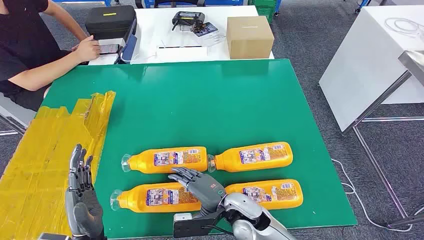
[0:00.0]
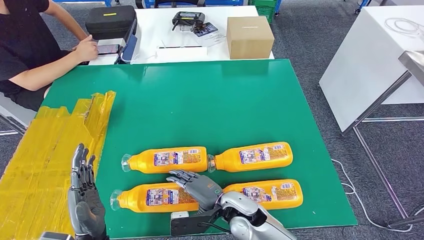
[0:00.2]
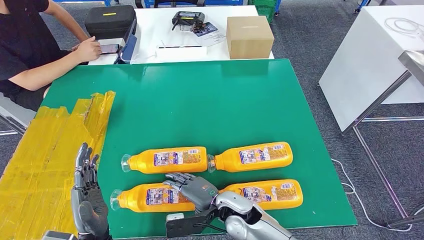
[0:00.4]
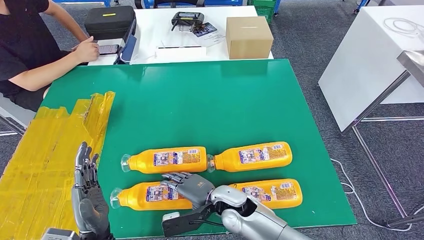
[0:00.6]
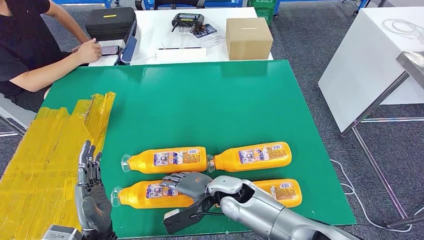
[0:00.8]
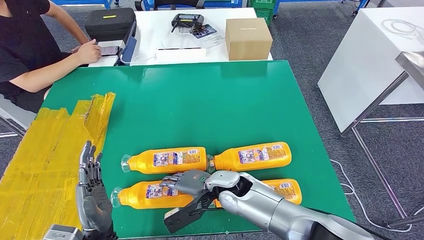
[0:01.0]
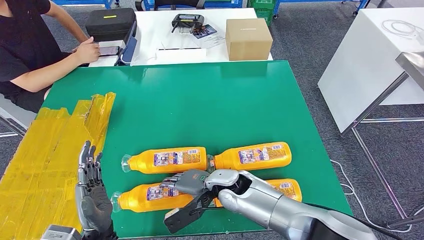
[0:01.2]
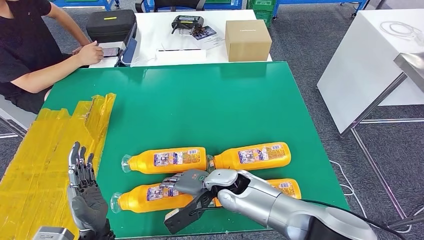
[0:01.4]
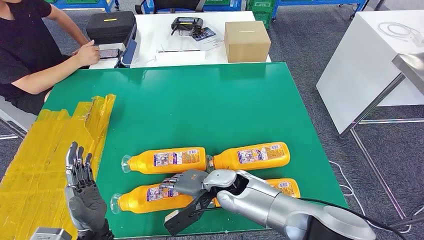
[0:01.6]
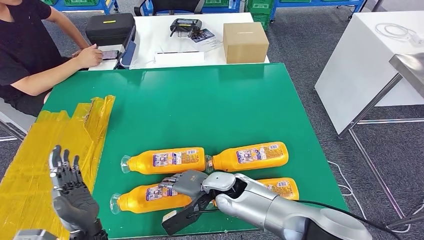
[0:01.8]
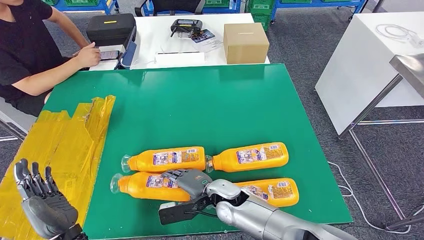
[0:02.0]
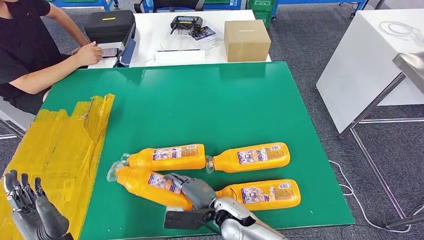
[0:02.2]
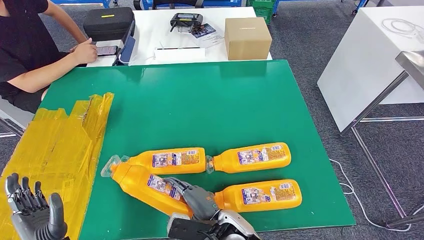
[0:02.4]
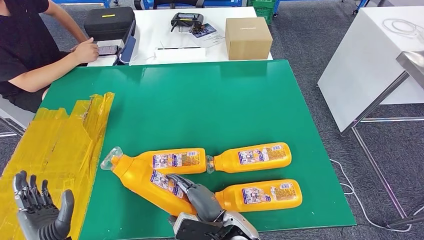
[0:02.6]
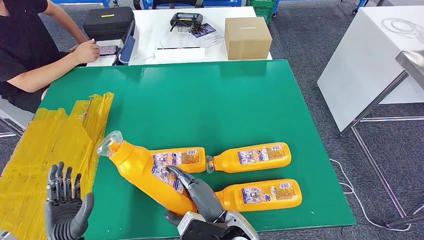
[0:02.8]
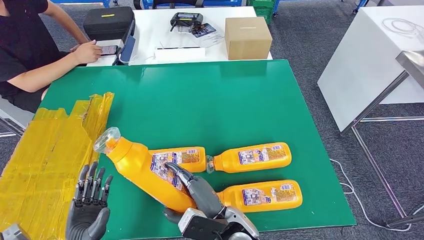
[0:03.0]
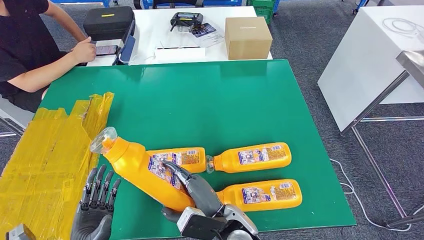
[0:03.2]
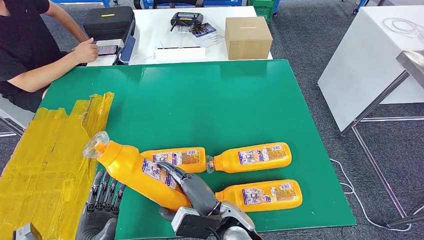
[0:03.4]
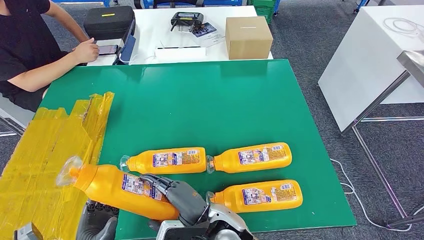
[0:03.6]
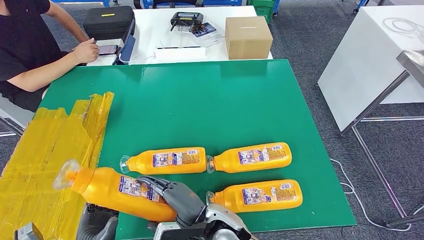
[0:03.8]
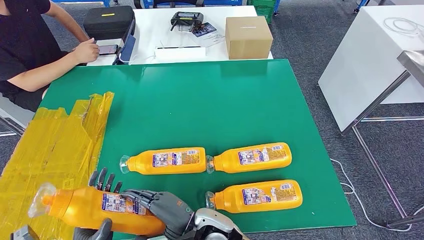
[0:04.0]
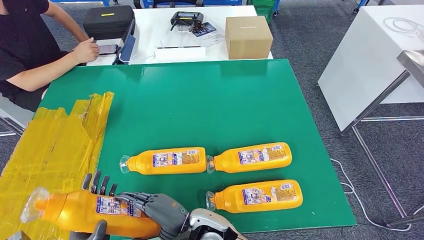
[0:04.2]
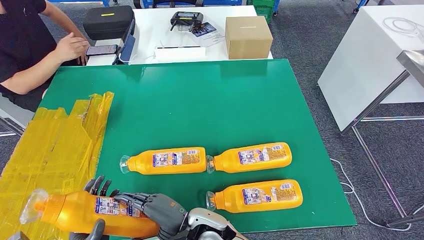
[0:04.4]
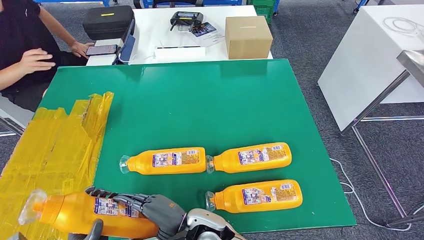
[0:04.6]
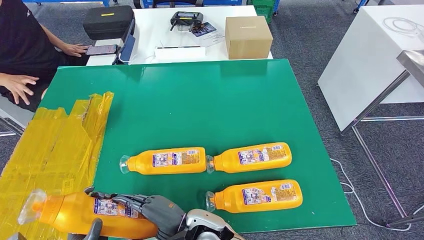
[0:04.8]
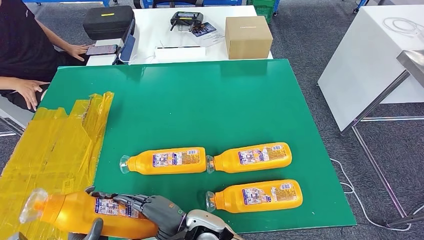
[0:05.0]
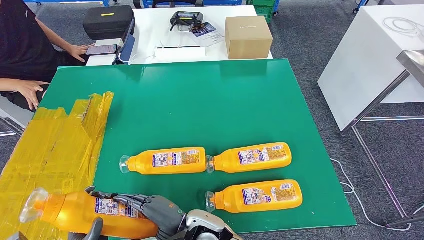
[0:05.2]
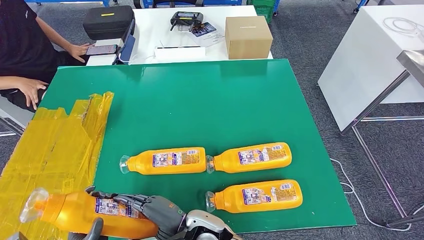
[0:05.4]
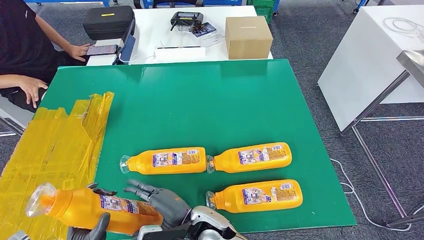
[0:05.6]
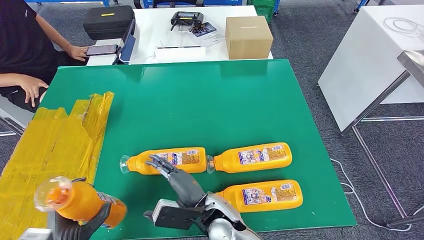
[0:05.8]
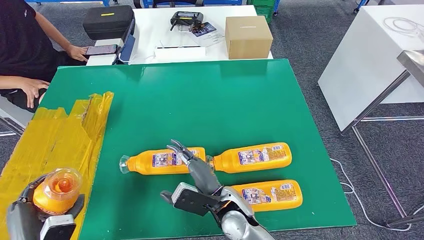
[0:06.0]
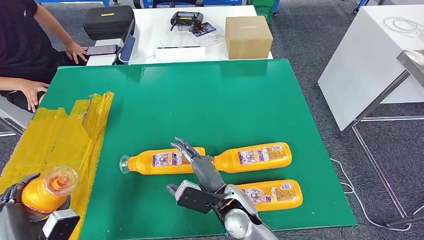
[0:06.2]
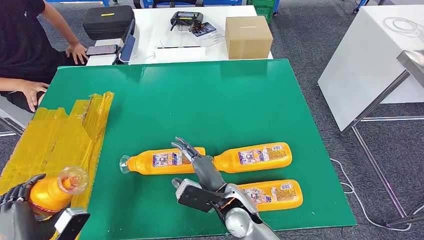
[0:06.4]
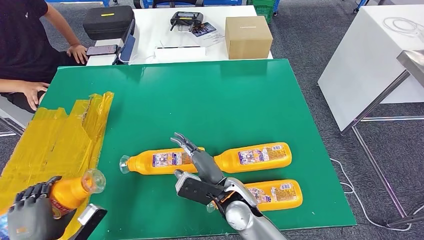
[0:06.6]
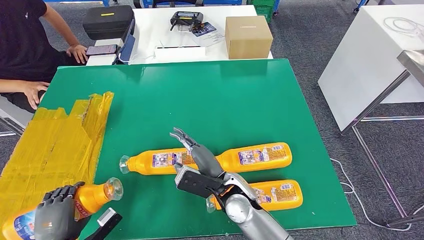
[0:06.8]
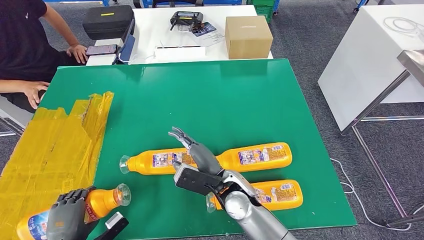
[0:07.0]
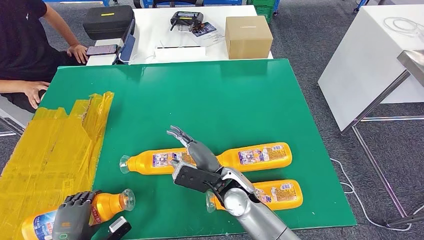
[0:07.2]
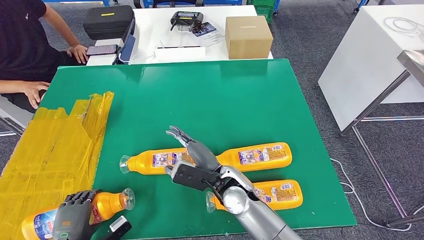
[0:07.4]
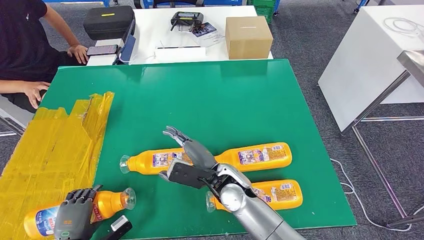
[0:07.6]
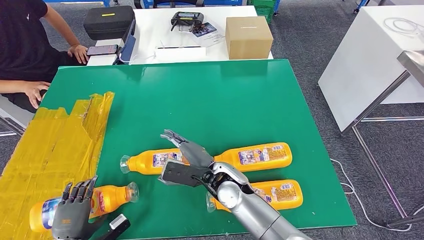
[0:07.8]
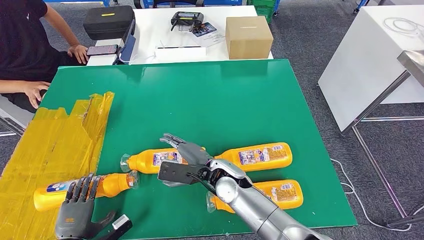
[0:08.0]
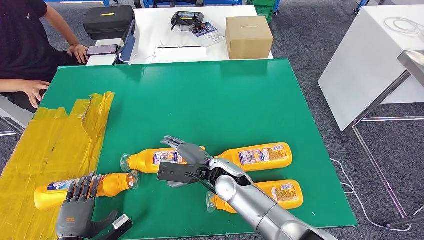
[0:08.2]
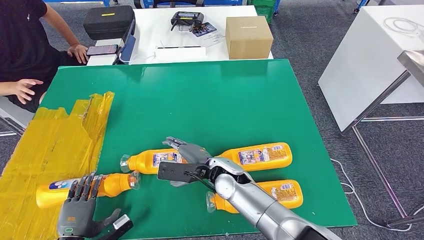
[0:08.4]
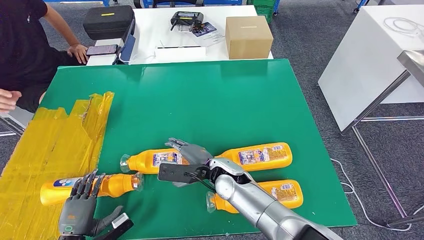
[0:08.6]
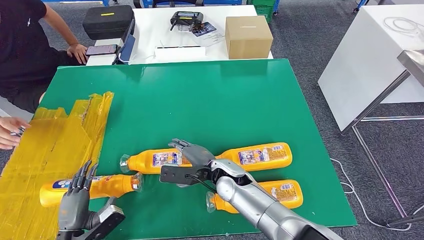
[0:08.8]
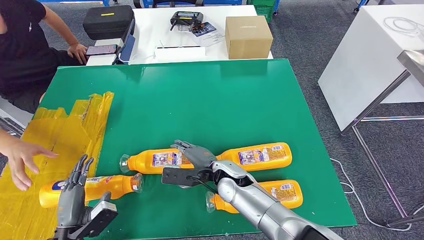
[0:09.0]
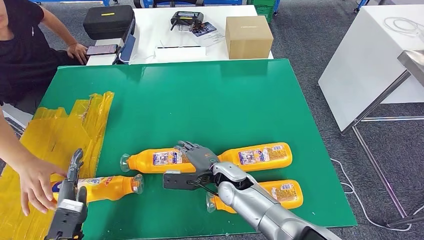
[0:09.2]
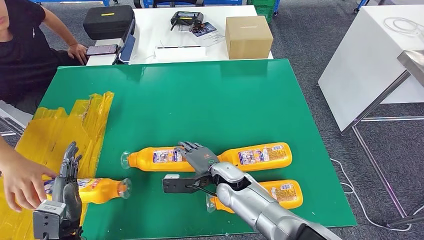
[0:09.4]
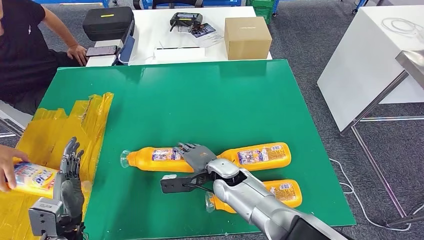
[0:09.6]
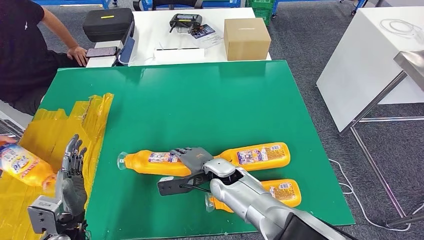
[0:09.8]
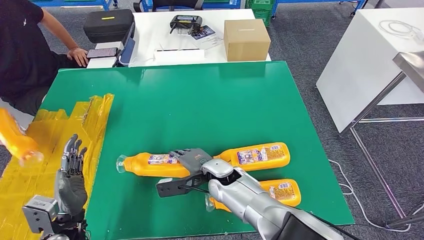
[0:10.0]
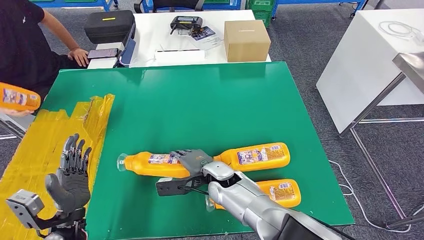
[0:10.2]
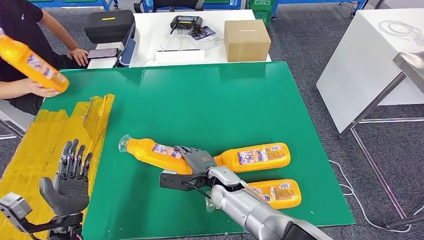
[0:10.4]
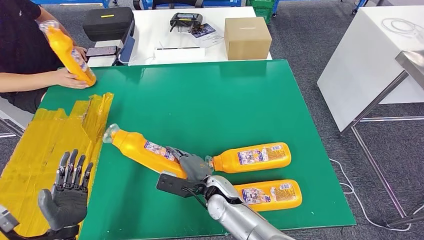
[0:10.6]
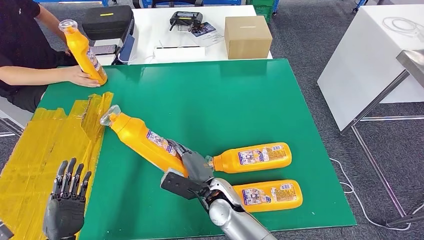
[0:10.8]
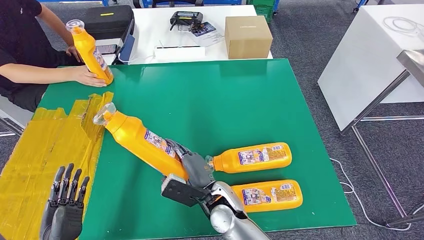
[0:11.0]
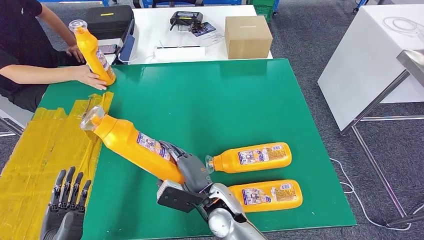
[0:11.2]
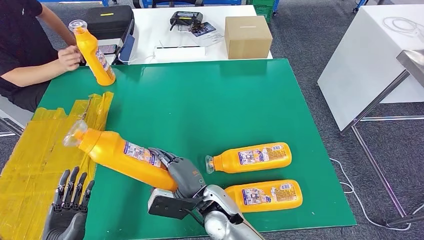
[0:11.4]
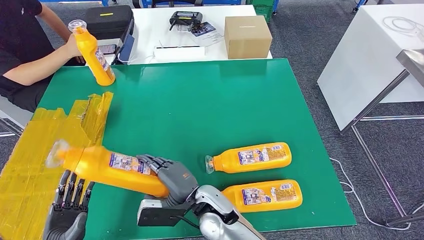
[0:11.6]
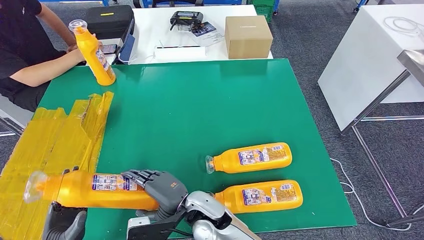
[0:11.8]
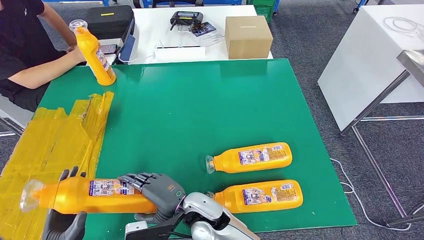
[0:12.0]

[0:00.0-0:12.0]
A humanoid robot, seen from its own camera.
Step, 0:00.0 to 0:02.8: Take the bottle from the table.
Step, 0:03.2 to 0:09.2: Flip the bottle to face forward.
0:03.0 to 0:04.4: The right hand heads to the left, covering roughly 5 cm.
0:04.4 to 0:06.0: The left hand heads to the left, covering about 5 cm, while the right hand shifts about 5 cm to the right.
0:06.0 to 0:07.6: The right hand travels forward by approximately 5 cm; the left hand travels downward by approximately 10 cm.

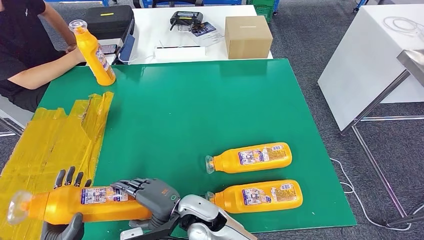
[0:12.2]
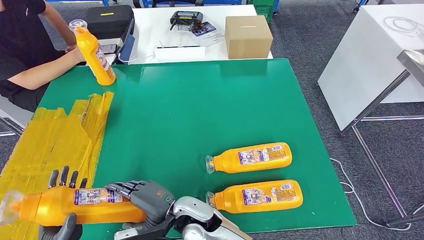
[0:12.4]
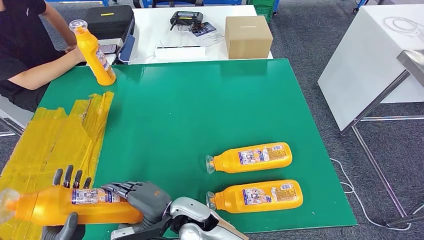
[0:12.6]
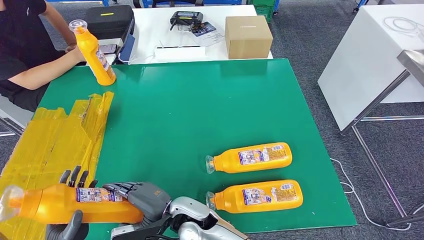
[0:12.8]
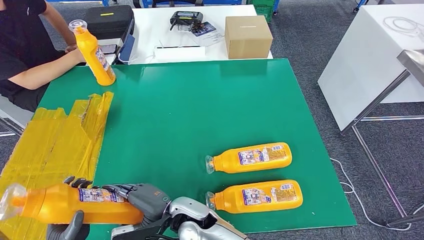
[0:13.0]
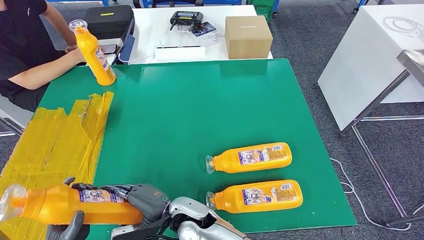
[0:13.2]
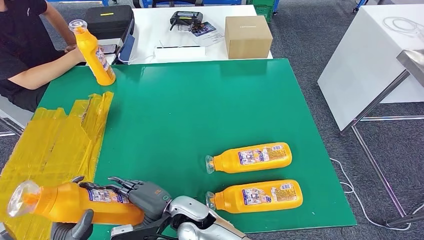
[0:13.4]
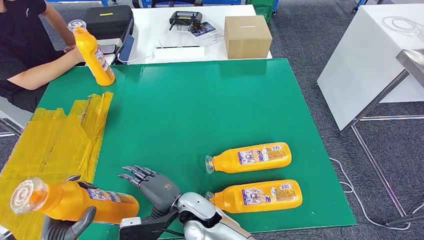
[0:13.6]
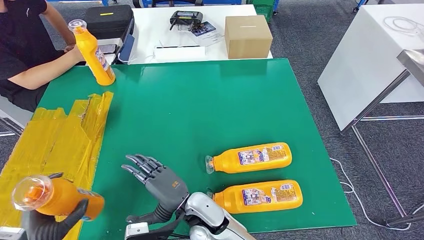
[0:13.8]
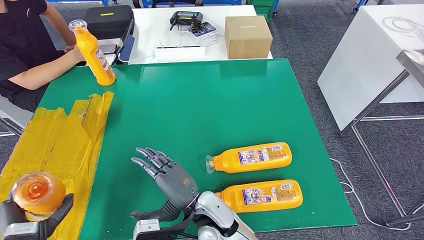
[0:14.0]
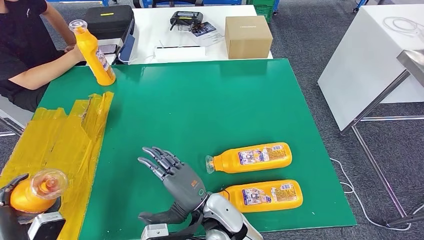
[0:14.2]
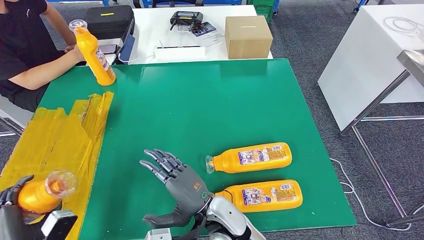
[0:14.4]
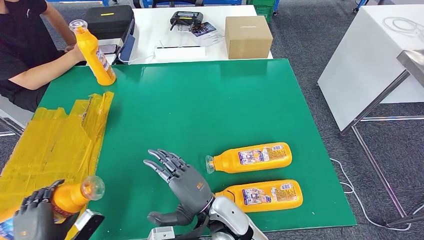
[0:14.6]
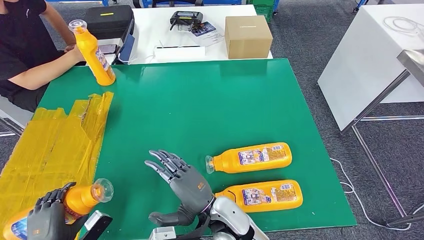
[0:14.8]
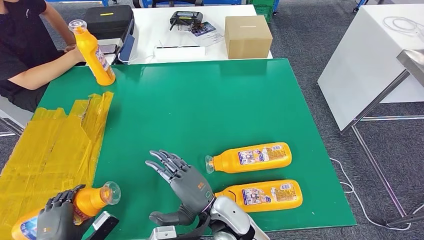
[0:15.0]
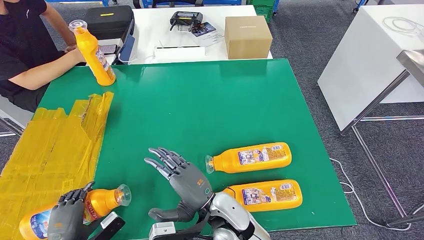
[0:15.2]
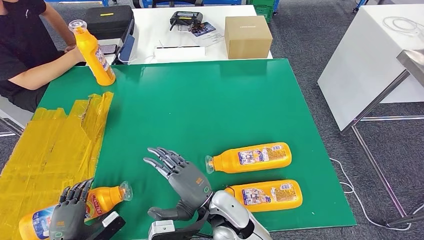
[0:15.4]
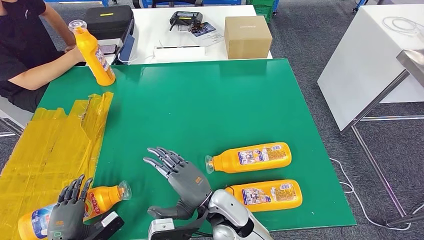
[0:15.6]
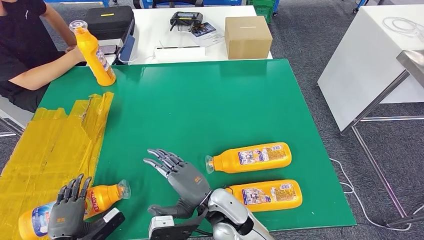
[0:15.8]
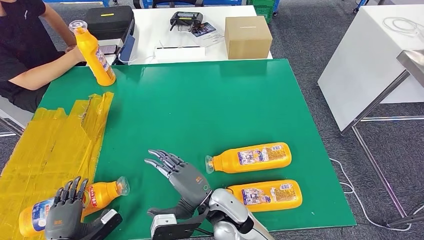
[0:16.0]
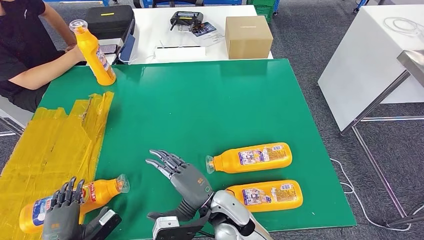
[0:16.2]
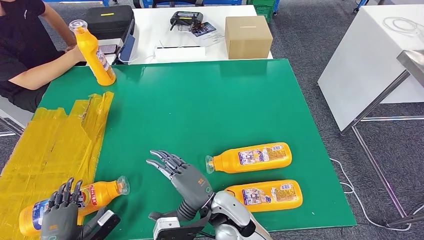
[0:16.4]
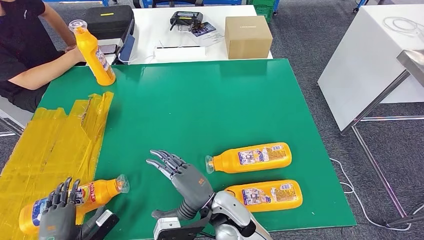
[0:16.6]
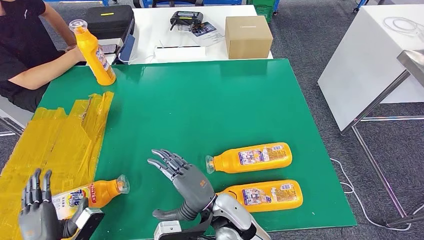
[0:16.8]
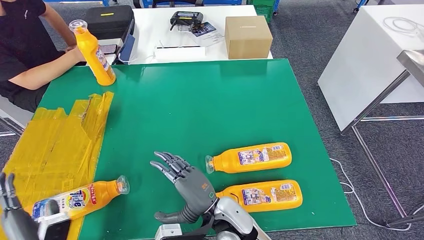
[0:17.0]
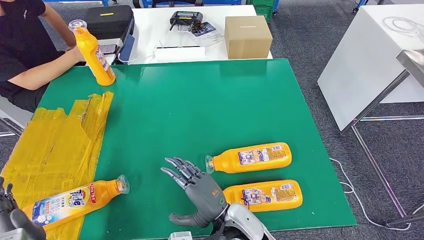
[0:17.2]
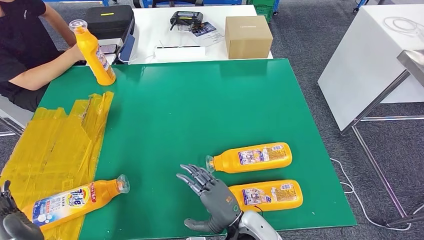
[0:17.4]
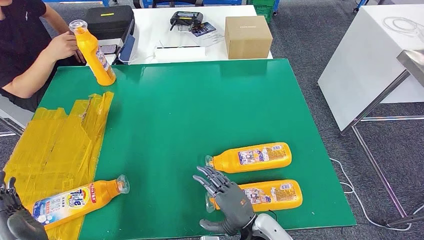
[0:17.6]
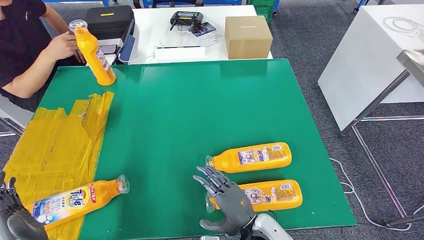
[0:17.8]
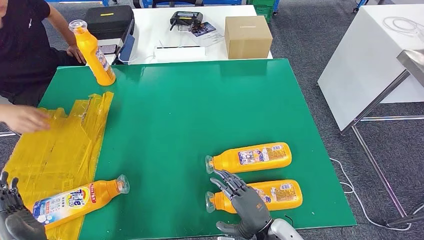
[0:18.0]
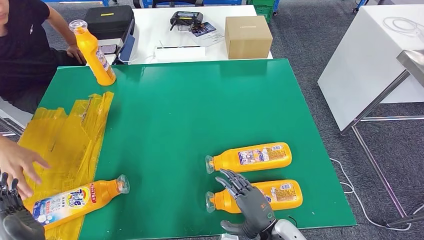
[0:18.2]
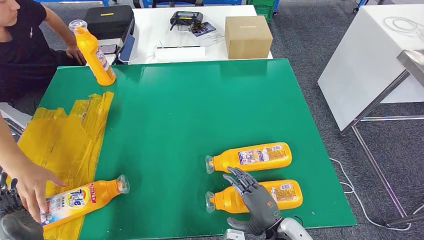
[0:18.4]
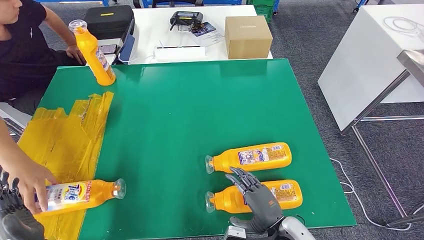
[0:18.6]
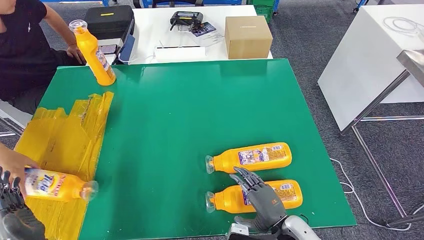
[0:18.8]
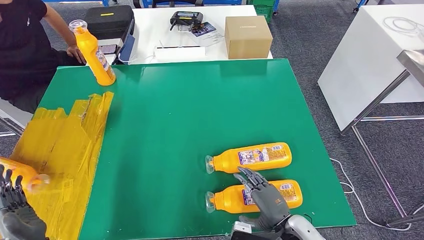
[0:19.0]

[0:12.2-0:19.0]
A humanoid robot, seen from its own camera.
Step, 0:12.8 to 0:17.0: Flip the bottle to face forward.
0:12.2 to 0:13.6: The hands stay close to where they were, moving slightly.
0:13.6 to 0:15.0: The right hand moves to the right, approximately 5 cm.
0:16.2 to 0:17.6: The right hand moves to the right, some 10 cm, while the left hand moves upward, roughly 10 cm.
0:17.6 to 0:19.0: The right hand heads to the right, covering roughly 10 cm.
